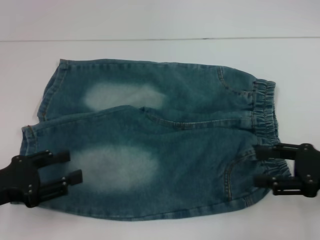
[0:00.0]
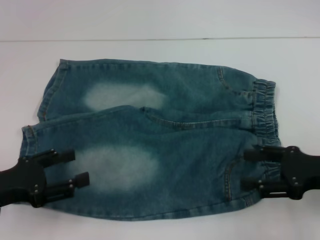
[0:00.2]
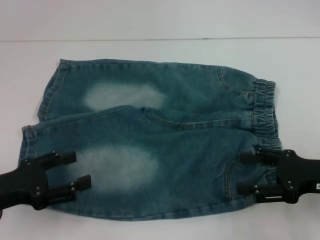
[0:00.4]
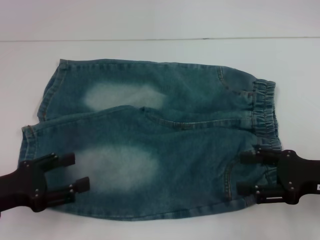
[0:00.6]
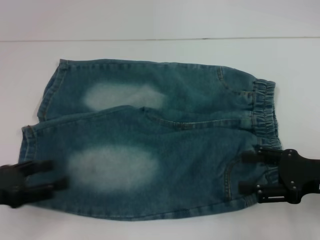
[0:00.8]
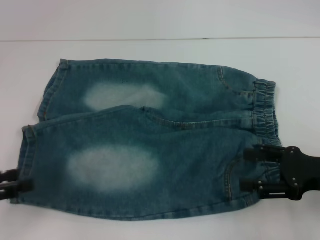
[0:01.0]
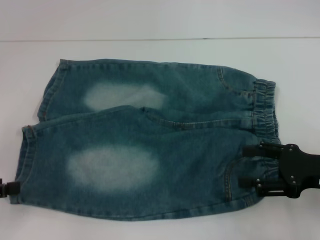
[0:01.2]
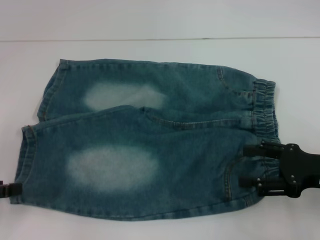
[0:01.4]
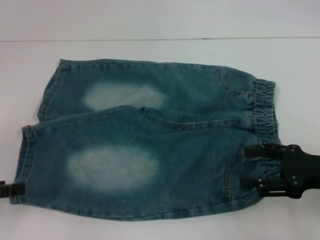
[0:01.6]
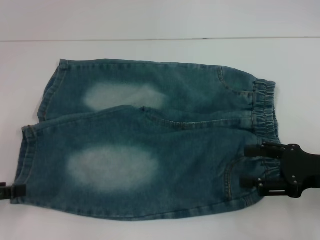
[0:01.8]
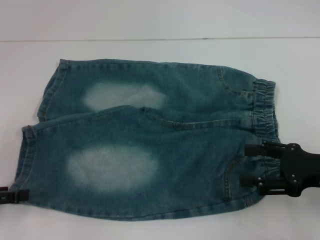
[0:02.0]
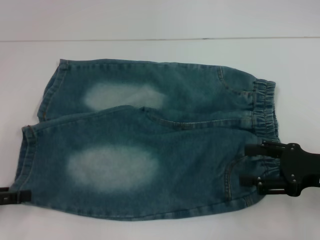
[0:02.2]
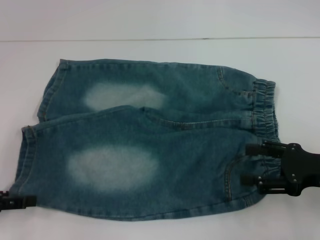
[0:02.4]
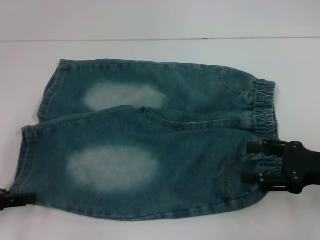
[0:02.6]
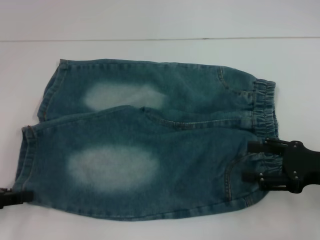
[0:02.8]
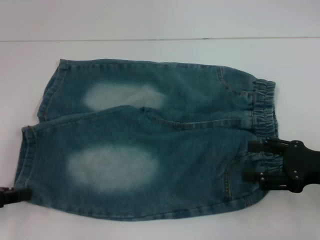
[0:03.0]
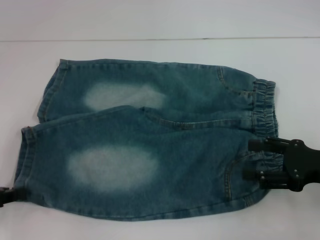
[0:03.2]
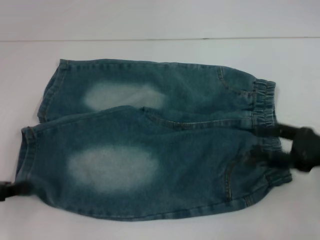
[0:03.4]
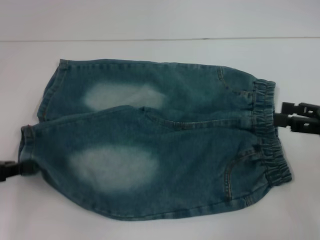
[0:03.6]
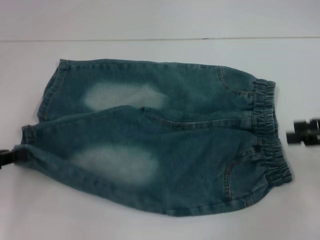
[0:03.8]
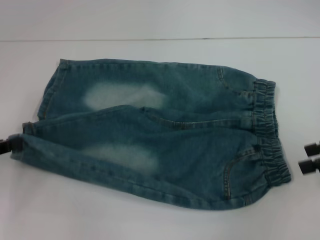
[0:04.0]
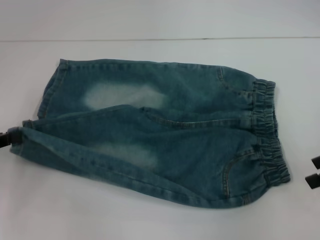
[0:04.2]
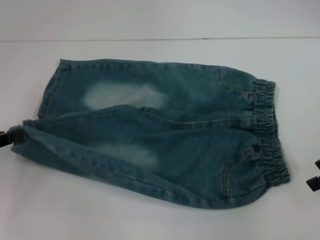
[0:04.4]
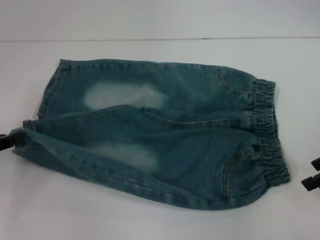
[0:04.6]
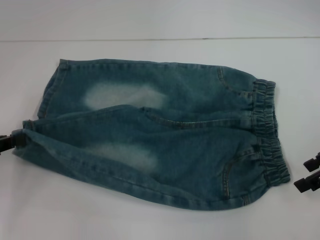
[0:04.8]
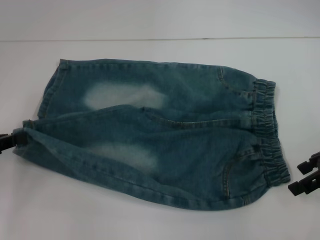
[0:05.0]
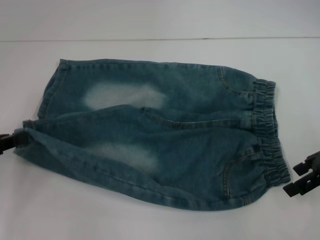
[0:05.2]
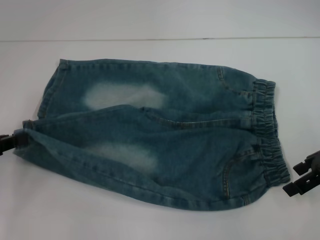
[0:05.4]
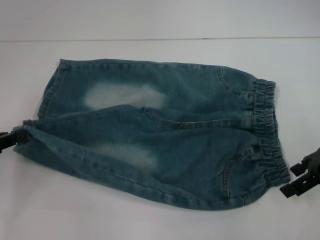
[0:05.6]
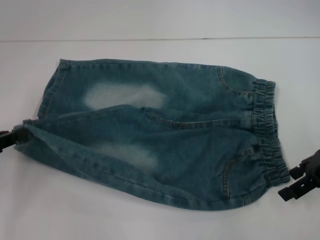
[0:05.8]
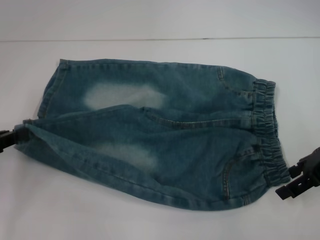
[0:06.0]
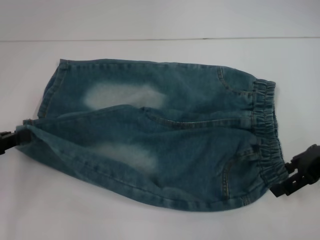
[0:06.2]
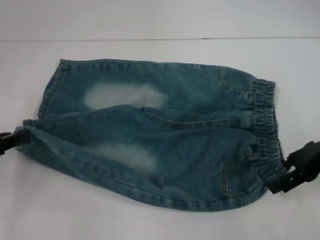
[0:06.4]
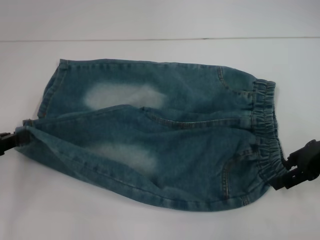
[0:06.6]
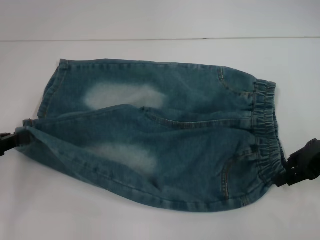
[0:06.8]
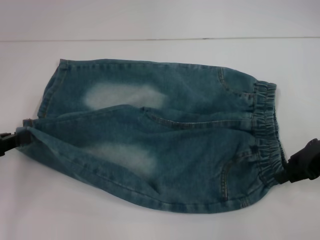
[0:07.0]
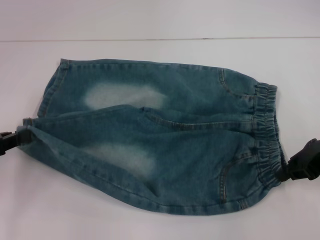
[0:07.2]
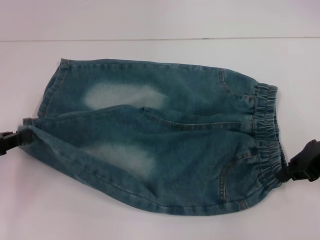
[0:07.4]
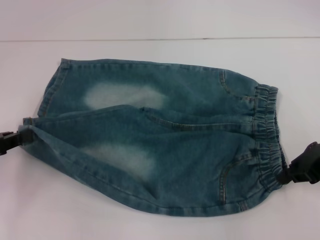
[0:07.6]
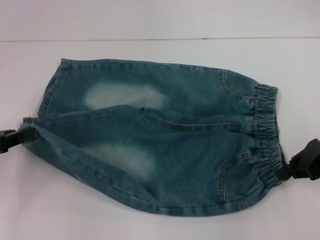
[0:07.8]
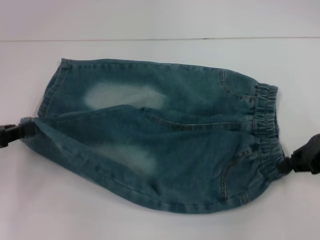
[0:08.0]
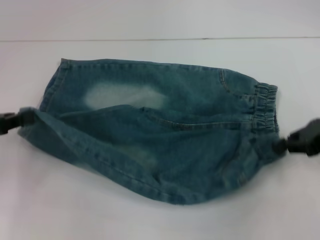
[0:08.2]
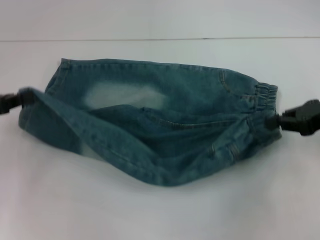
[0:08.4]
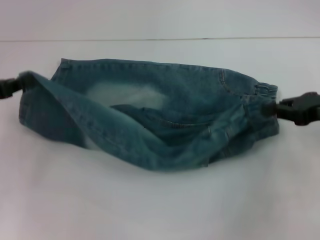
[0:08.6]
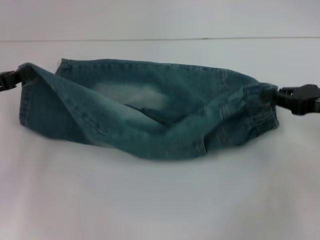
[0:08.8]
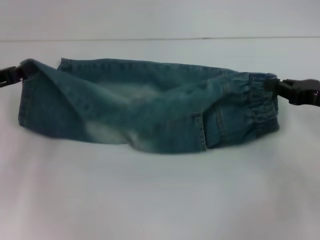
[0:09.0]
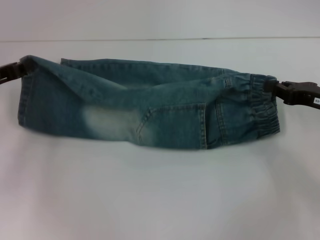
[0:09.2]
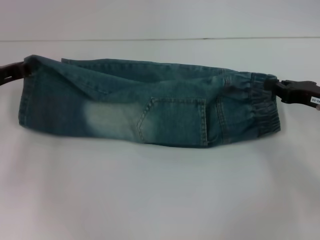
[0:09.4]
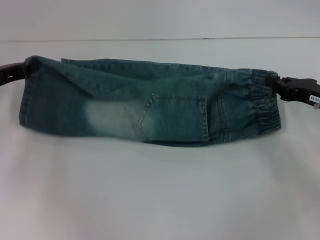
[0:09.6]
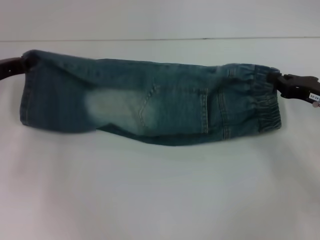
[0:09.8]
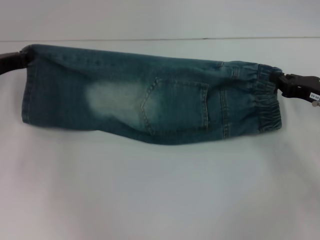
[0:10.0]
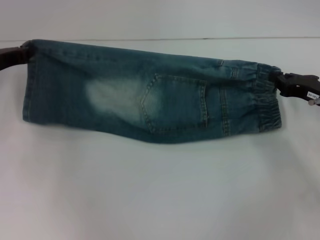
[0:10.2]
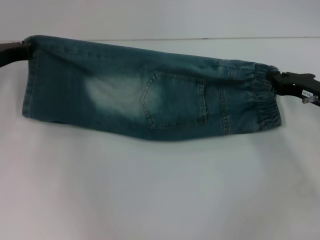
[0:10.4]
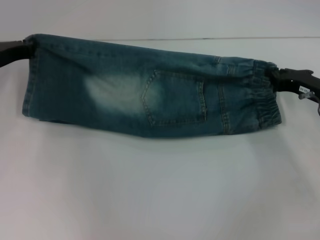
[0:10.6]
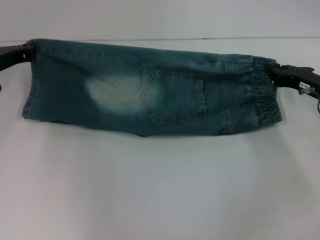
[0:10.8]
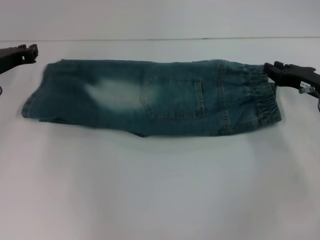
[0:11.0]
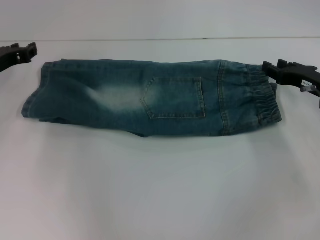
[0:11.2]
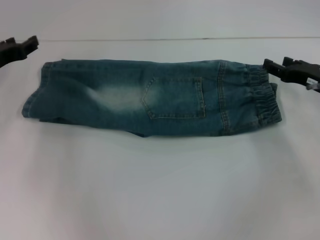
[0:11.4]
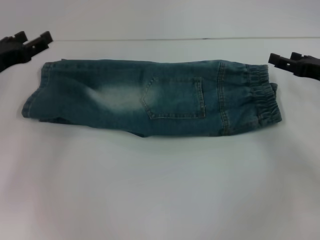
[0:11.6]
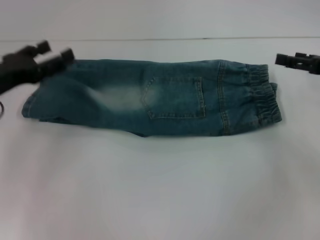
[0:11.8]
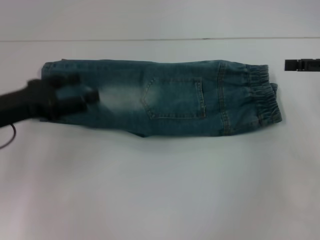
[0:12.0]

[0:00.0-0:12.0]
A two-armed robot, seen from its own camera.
Step, 0:00.0 to 0:02.8: Grab the lower left pant leg with your left hand.
Step, 0:03.0 to 0:07.4: Hold the lower right waistband with your right hand.
Step, 0:07.8 to 0:11.2: Fold upward with your right hand.
0:00.0 to 0:01.6: The left gripper shifts some 5 cm to the left.
0:01.6 to 0:03.0: The left gripper closes.
0:03.0 to 0:04.4: The right gripper heads upward and forward, covering some 10 cm. Meanwhile the left gripper closes.
0:04.4 to 0:06.0: The right gripper shifts by about 5 cm.
0:06.0 to 0:07.6: The right gripper closes.
0:07.6 to 0:09.0: The left gripper moves forward, about 10 cm.
0:09.0 to 0:10.4: The right gripper moves roughly 5 cm. The left gripper moves forward, some 5 cm.
0:10.4 to 0:12.0: The right gripper is displaced upward and to the right by some 10 cm, and opens, while the left gripper heads backward, covering some 10 cm, and opens its fingers.

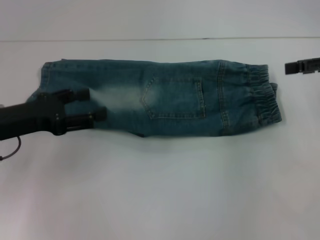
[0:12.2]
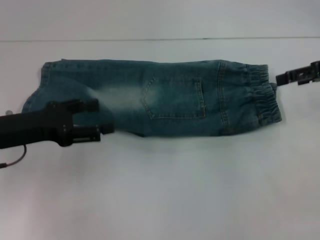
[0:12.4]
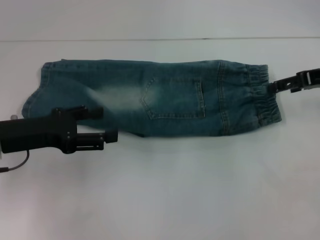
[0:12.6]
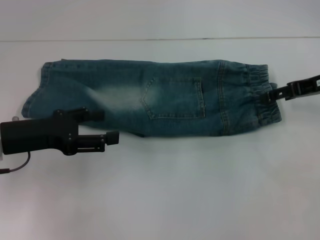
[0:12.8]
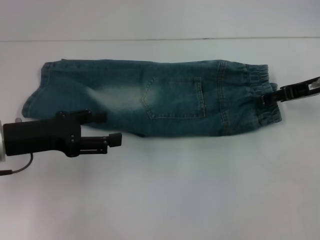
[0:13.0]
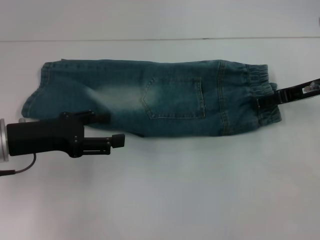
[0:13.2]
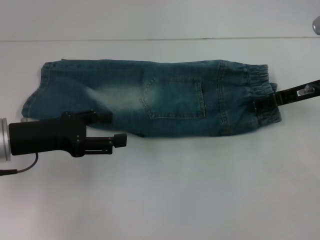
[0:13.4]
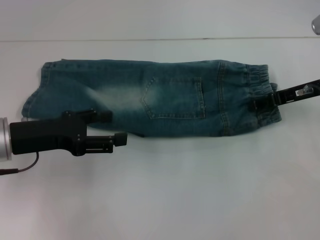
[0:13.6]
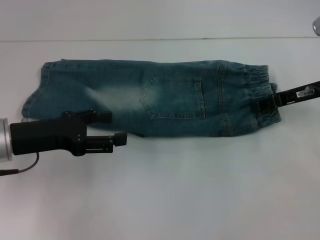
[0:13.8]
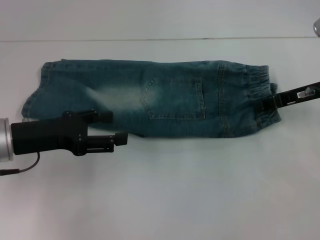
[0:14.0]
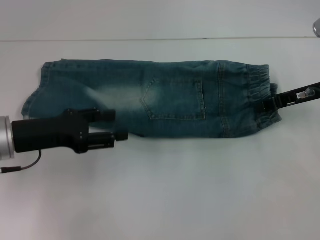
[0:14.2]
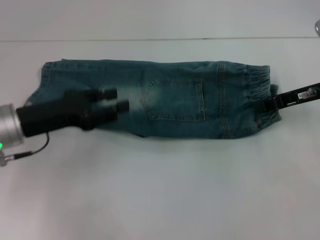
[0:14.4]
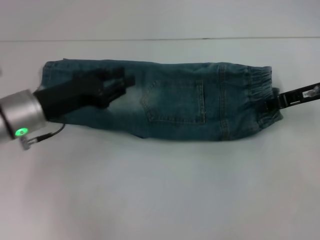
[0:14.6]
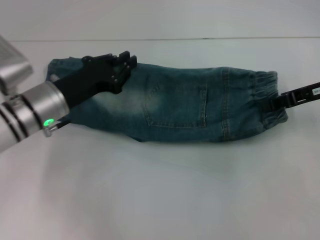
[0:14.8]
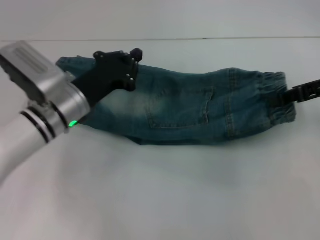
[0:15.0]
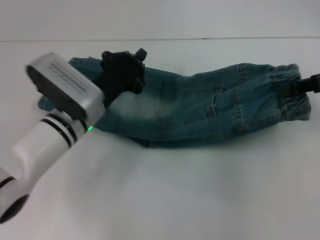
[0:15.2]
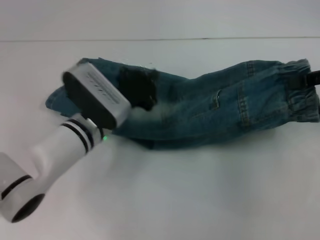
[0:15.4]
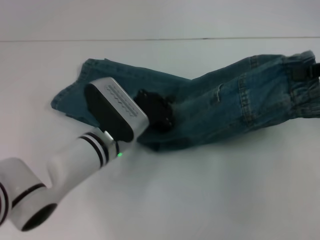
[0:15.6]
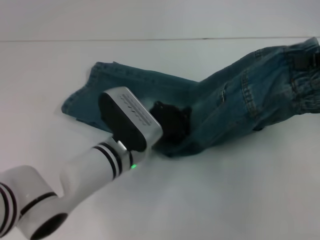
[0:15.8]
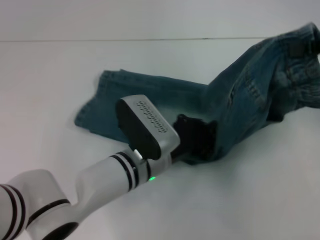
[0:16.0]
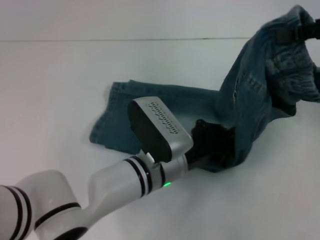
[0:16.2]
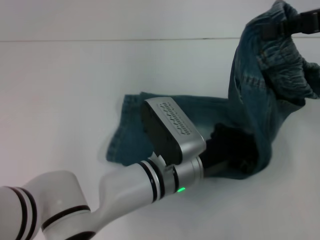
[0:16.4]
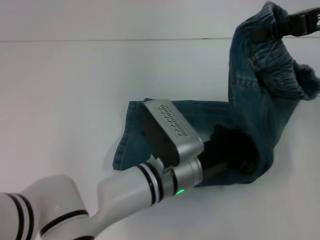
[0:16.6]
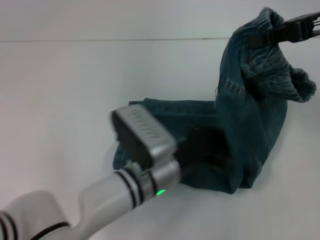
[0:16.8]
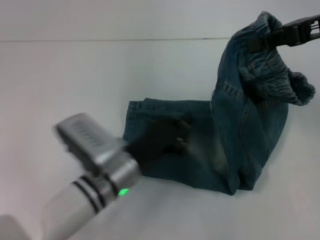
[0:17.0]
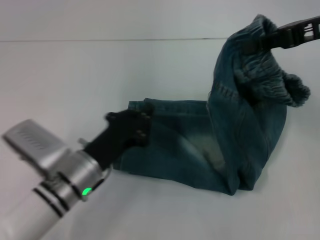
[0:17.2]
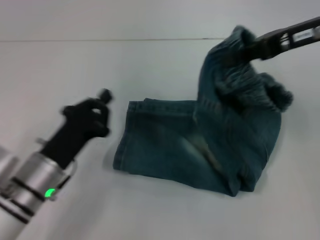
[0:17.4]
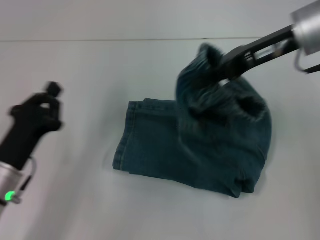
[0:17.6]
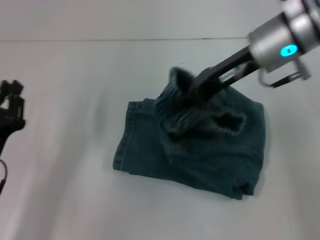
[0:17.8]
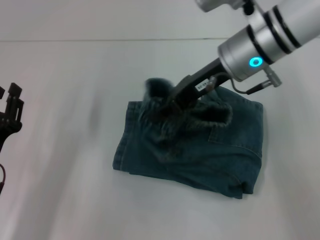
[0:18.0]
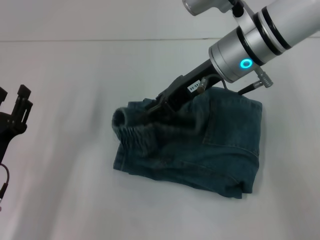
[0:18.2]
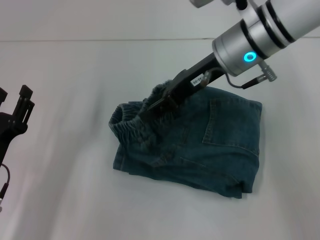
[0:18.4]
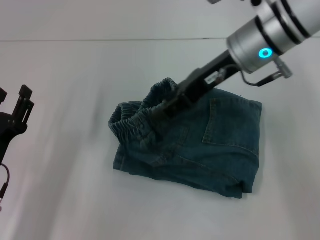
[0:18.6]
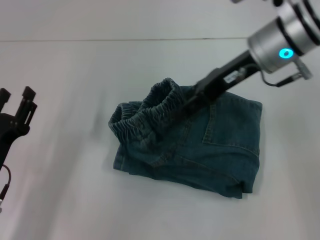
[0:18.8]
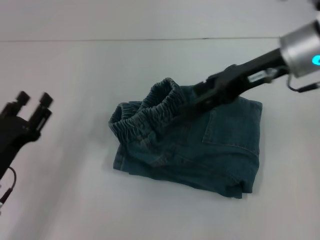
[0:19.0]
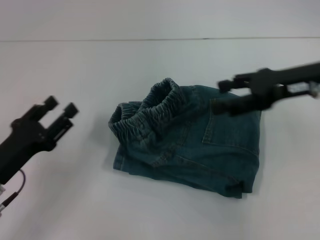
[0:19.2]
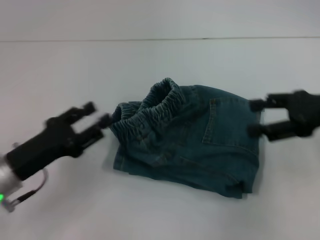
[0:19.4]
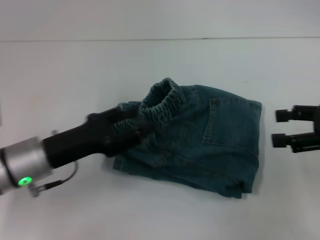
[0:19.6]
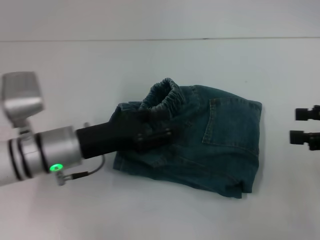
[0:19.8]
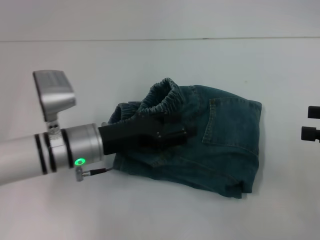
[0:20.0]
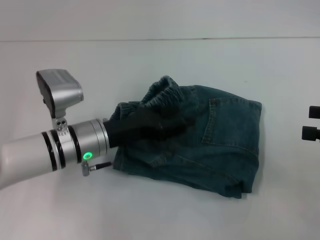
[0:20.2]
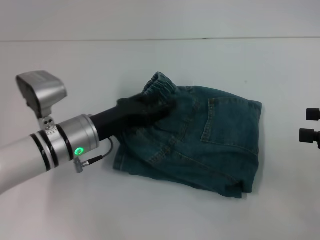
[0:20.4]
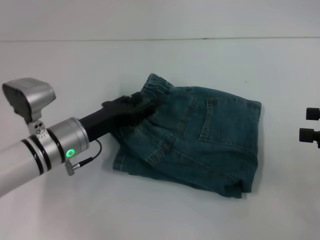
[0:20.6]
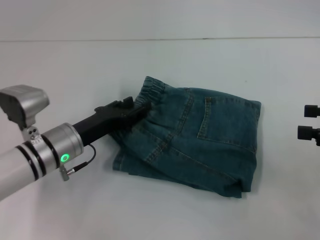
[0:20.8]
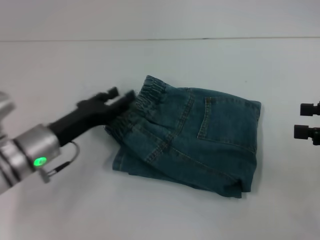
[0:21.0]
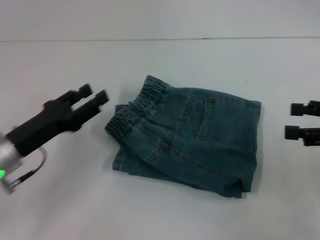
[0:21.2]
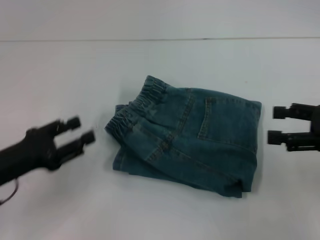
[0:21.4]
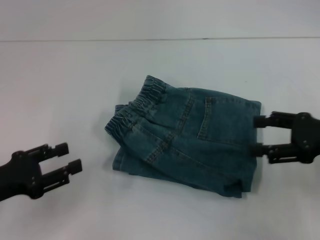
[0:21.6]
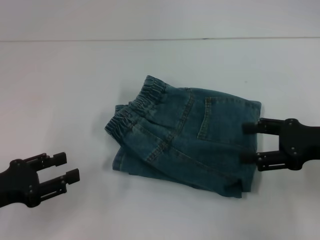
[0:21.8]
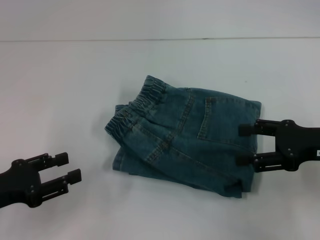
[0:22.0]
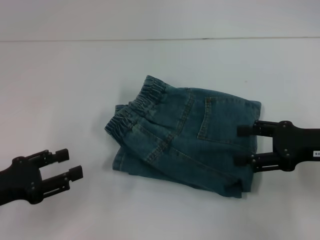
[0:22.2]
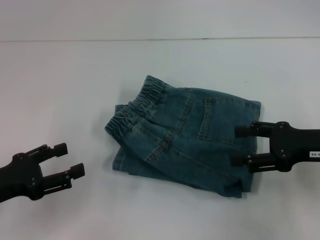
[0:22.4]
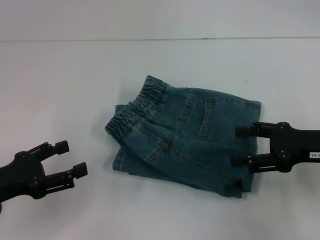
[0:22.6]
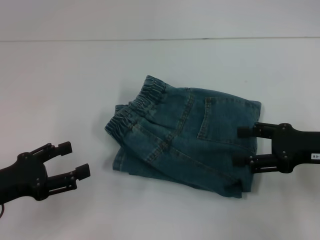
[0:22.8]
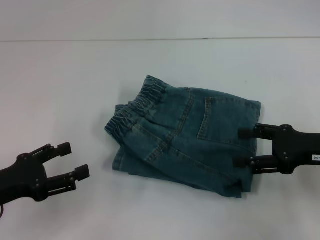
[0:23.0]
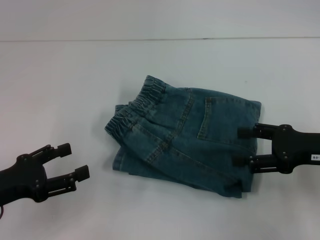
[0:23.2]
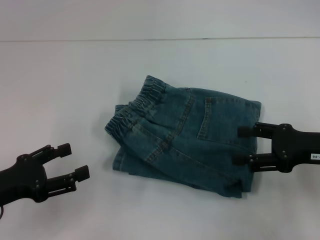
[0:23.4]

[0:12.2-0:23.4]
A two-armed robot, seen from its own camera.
Step, 0:12.2 to 0:14.2: Grab the waistband with your right hand.
Step, 0:14.4 to 0:16.8: Press the middle of the pants with your left hand.
Step, 0:17.0 to 0:18.6: Fold to the left with your right hand.
Step, 0:18.8 to 0:21.0: Adjust the pants with your left hand.
0:12.2 to 0:13.8: The right gripper moves downward and to the left, some 10 cm, and closes its fingers.
0:13.8 to 0:15.4: The left gripper is displaced to the right, downward and forward by approximately 15 cm, and closes up. The right gripper is displaced upward and to the right by some 10 cm, and closes.
0:15.4 to 0:17.0: The left gripper heads backward, covering approximately 10 cm, and travels to the right and back again, approximately 10 cm each way, while the right gripper travels to the left by some 5 cm.
0:17.0 to 0:18.6: Both grippers move to the left, some 15 cm. The right gripper opens its fingers; the left gripper opens its fingers.
0:18.6 to 0:20.2: The left gripper goes about 15 cm to the right and forward. The right gripper heads to the right and backward, covering some 30 cm, and opens its fingers.
0:20.2 to 0:21.8: The right gripper moves to the left, some 10 cm. The left gripper is displaced to the left and backward by about 20 cm.
0:21.8 to 0:23.4: The grippers stay close to where they were, moving slightly.
